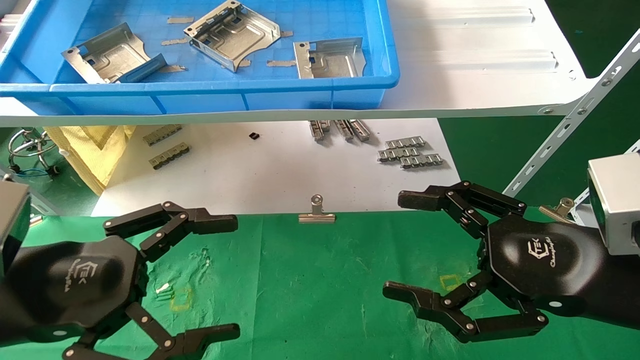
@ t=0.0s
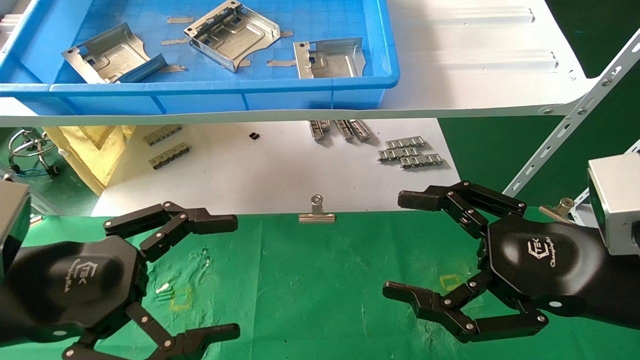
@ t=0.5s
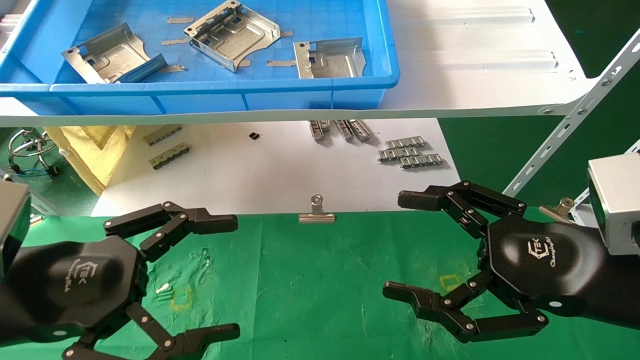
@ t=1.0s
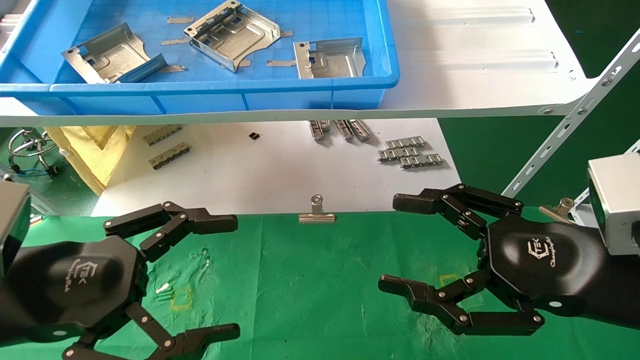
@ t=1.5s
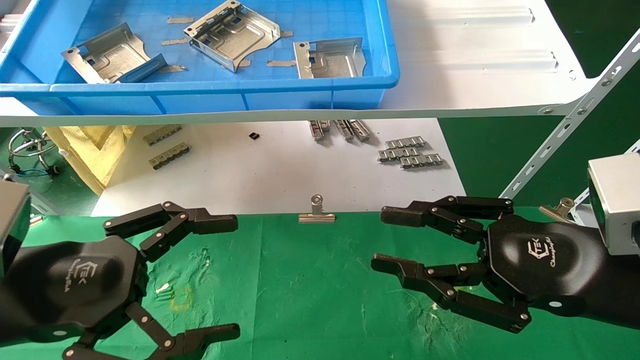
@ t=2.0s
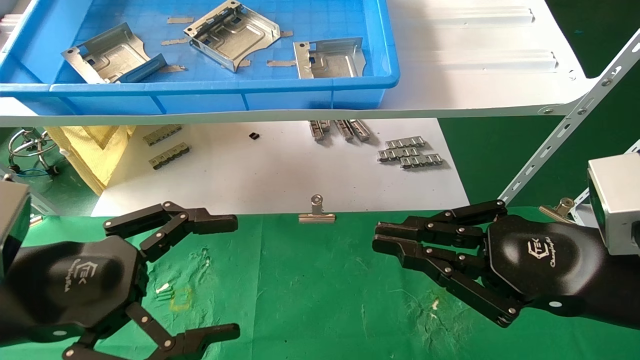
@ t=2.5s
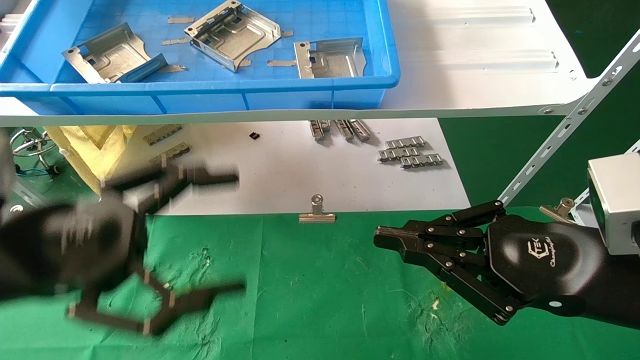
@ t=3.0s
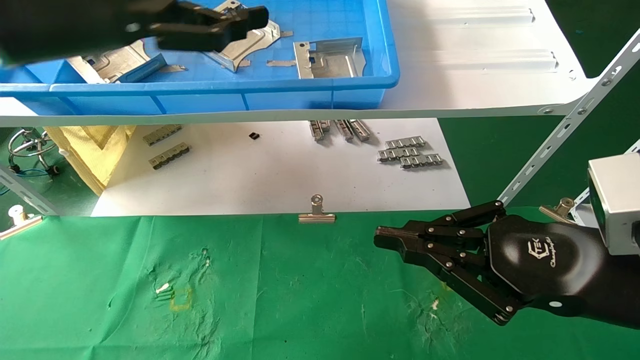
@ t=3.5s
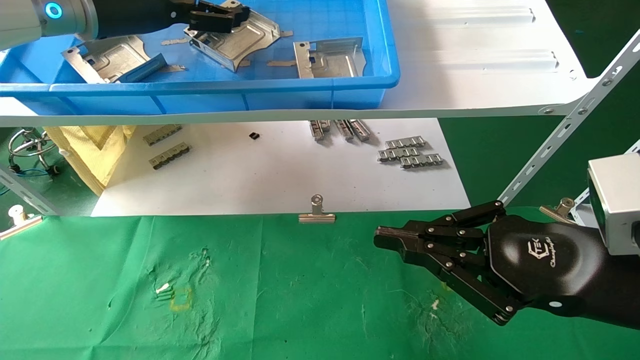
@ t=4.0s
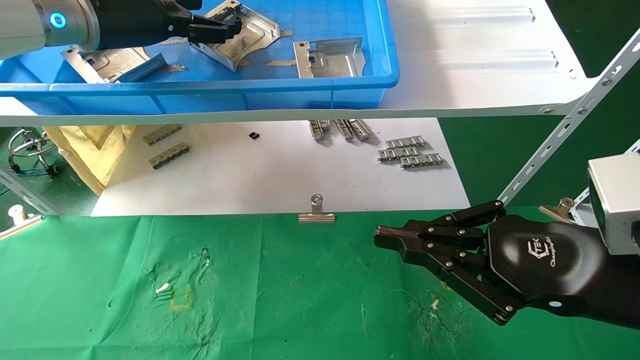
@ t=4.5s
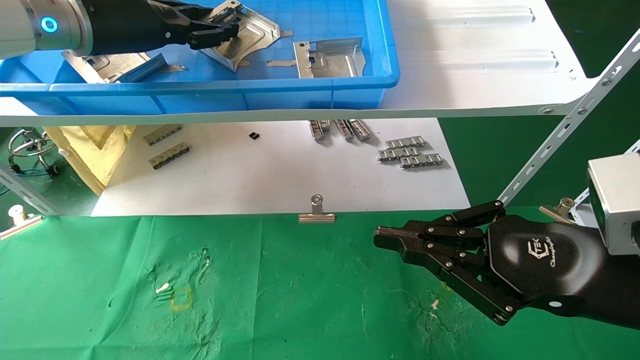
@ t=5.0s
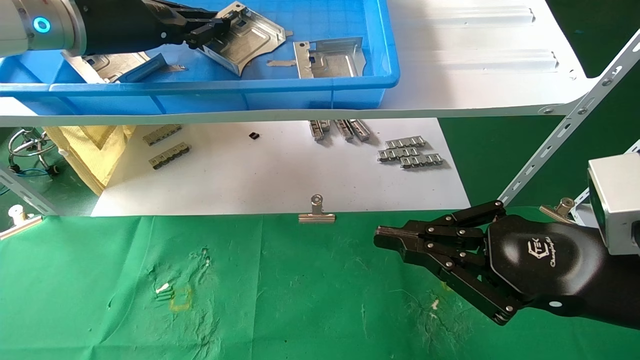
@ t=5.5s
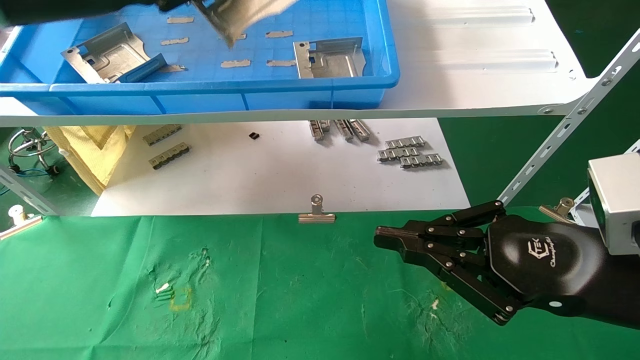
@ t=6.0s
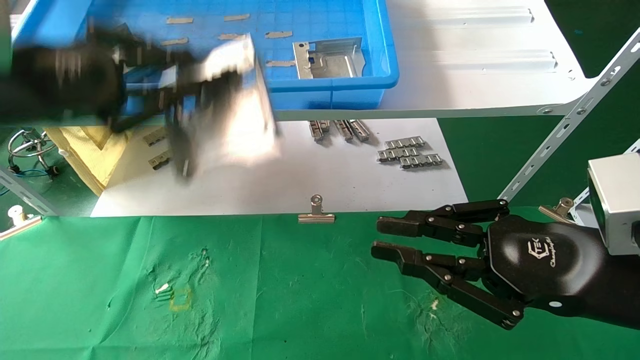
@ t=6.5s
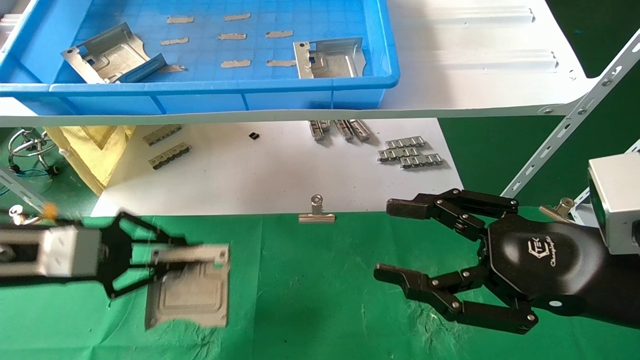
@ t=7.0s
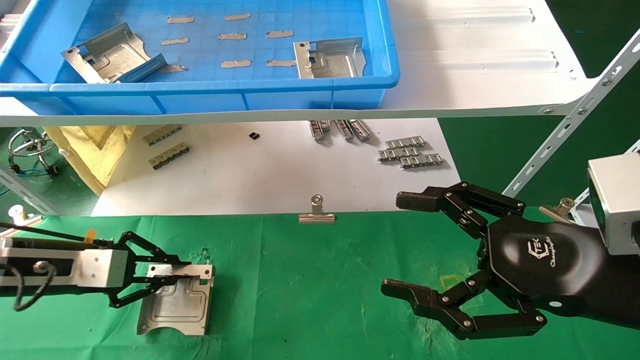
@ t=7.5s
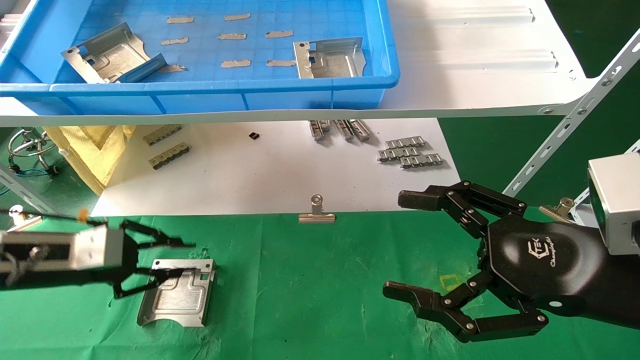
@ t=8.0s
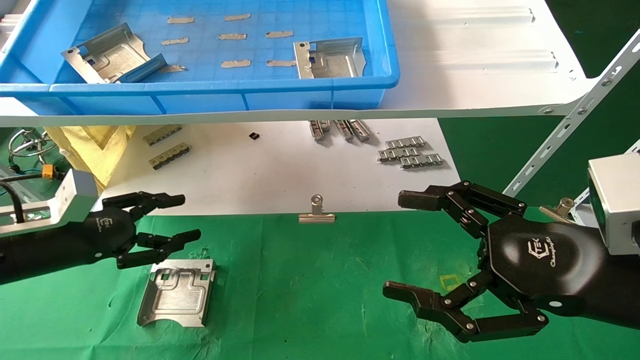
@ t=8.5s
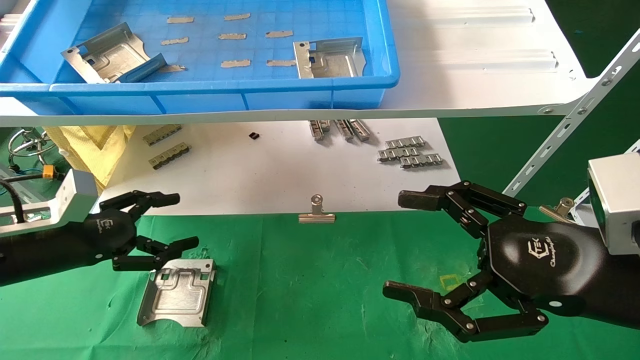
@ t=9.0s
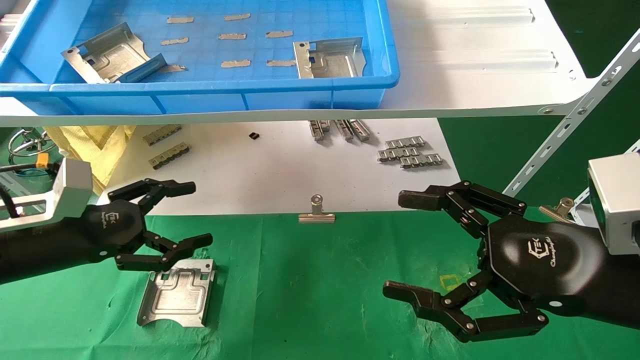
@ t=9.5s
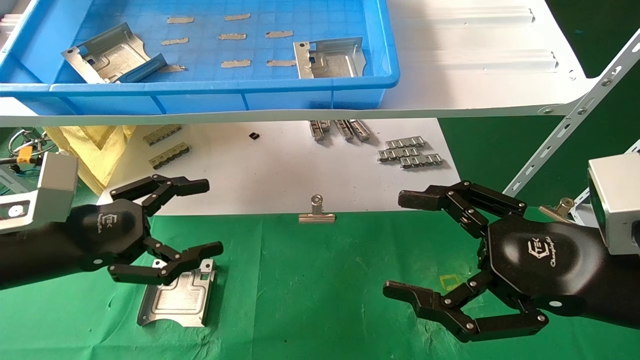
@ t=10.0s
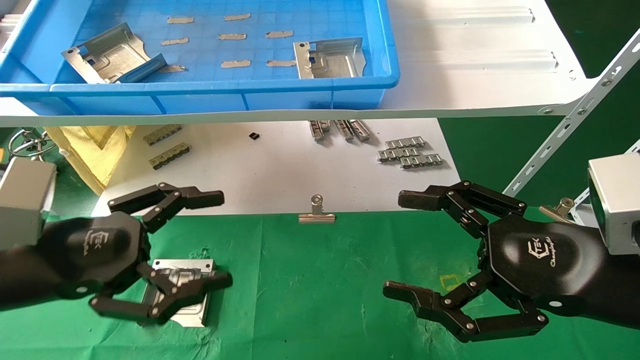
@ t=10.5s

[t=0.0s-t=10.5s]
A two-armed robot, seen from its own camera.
Task of the whole recording: use the mechanical arm to pick up the parts and place them on the table.
Step, t=3.0s to t=5.0s: Pick up the hard drive bracket from the feeding area.
Step, t=5.5s to t=8.0s: Place the hard drive bracket into the box.
t=0.0s to t=2.0s: The right gripper closes.
t=2.0s to t=4.0s: The left gripper moves upward and forward, roughly 30 cm. The right gripper closes up.
t=4.0s to t=6.5s: The left gripper goes roughly 15 cm backward, downward and to the left, and closes.
t=6.5s to t=8.5s: The right gripper opens its fingers; the left gripper is displaced downward by roughly 20 cm, and opens its fingers.
t=8.5s to t=10.5s: The left gripper moves backward and to the right, approximately 15 cm, and opens.
